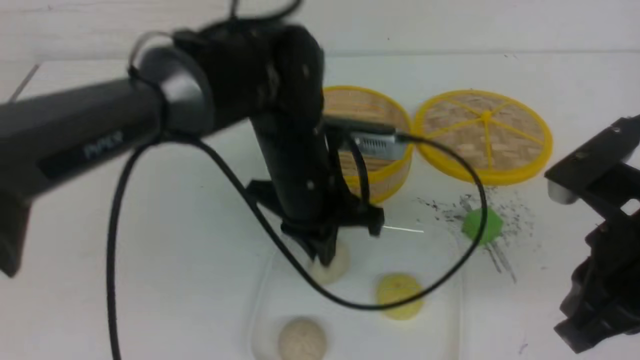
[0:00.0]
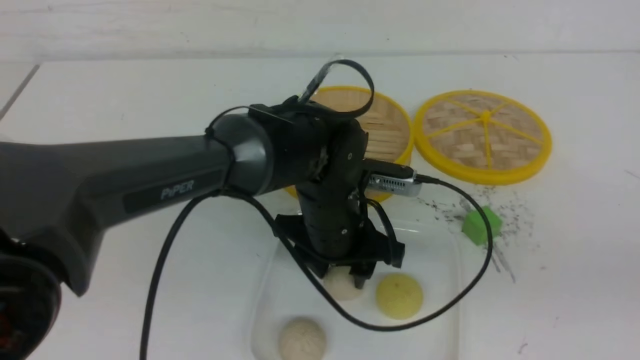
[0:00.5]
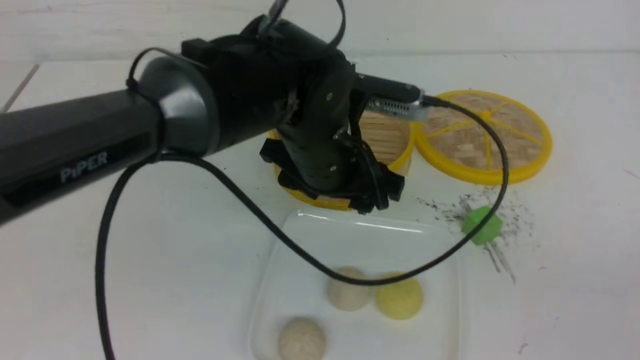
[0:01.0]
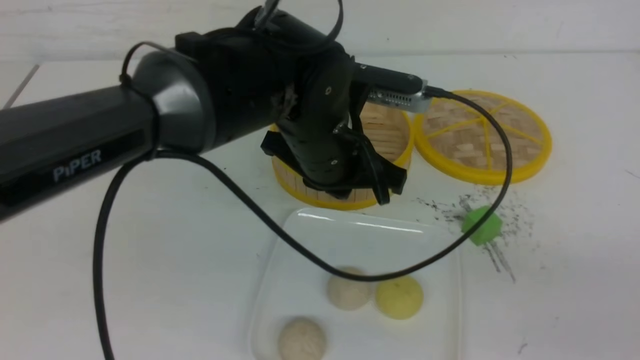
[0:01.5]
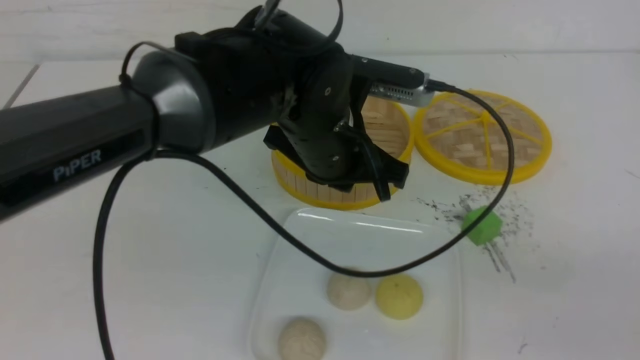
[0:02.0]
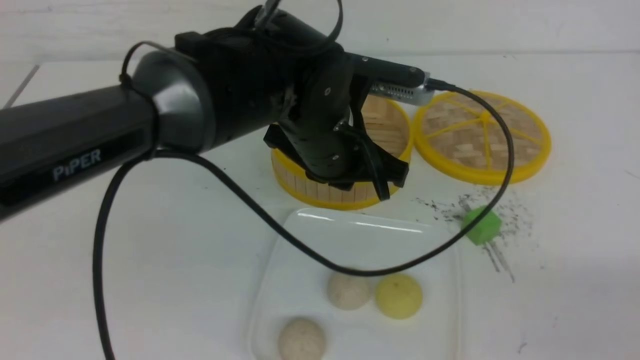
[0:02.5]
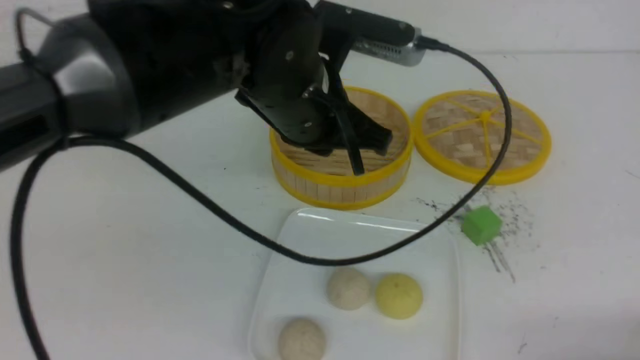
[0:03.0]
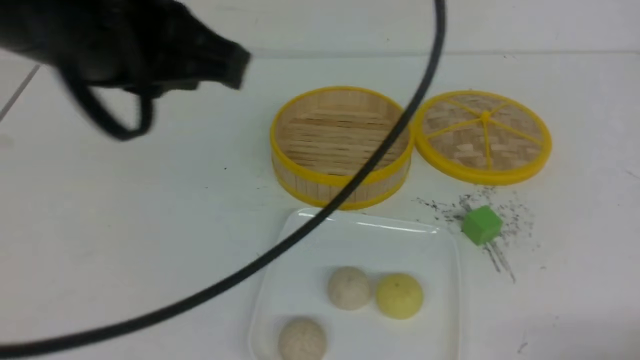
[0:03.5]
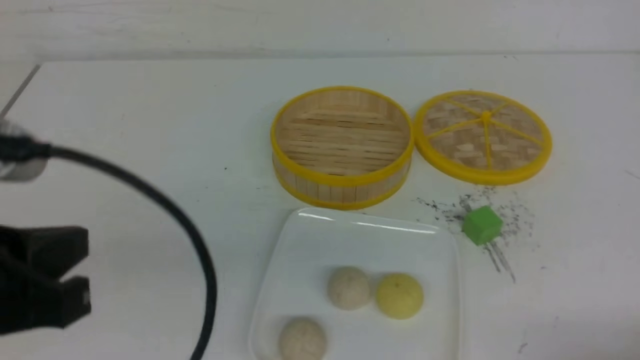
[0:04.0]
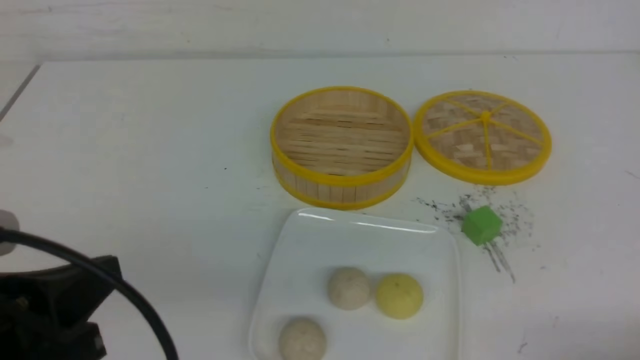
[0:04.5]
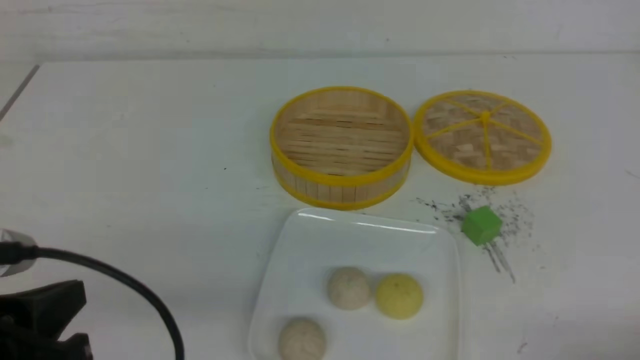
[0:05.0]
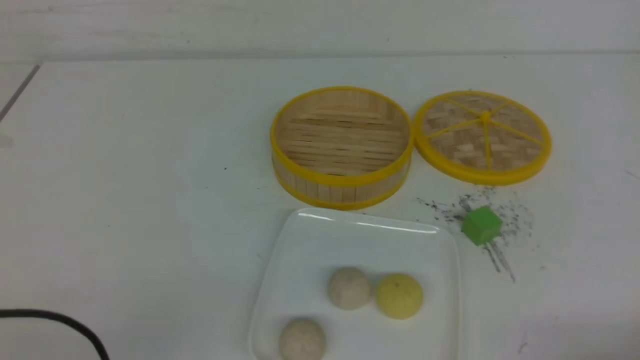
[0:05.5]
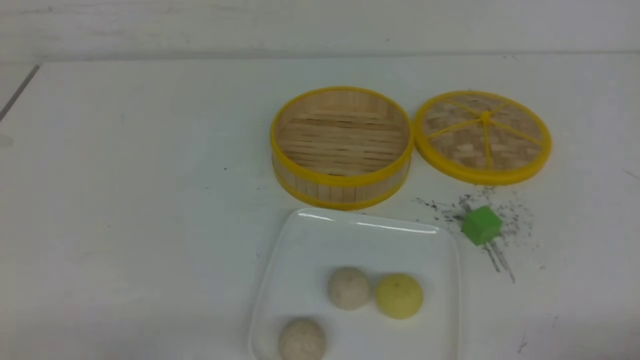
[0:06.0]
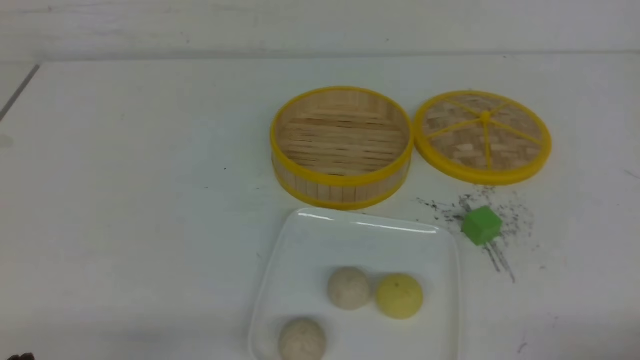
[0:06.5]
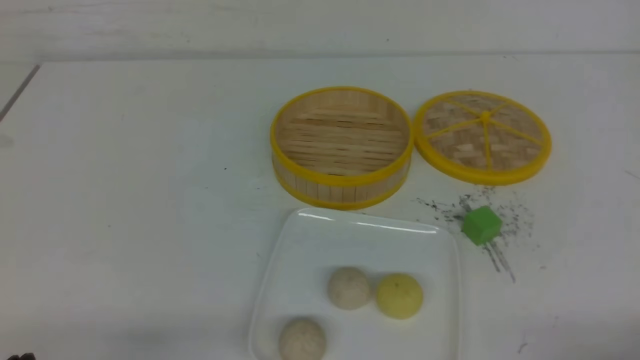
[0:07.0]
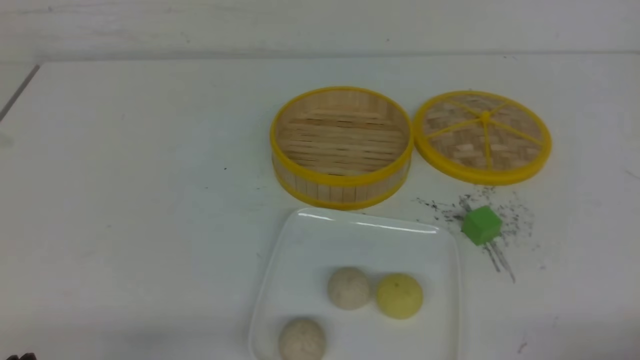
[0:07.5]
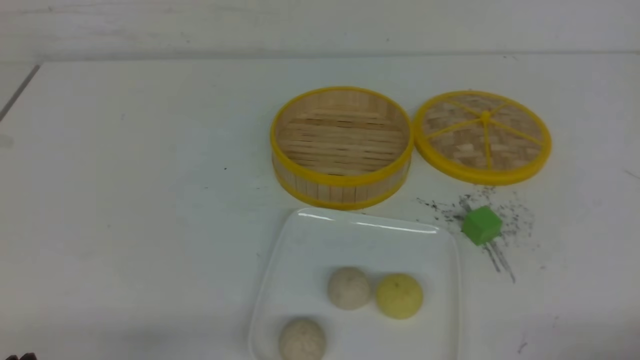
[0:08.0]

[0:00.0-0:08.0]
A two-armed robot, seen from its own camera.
0:00.0 to 0:02.0: The left gripper opens, then closes again, while the right gripper heads backward and to the right, covering approximately 15 cm.
0:02.0 to 0:04.0: The left gripper goes about 30 cm to the left and backward, while the right gripper is displaced downward by approximately 10 cm.
0:04.0 to 0:06.0: The left gripper moves downward, roughly 20 cm.
0:06.0 to 0:08.0: Both grippers stay put.
